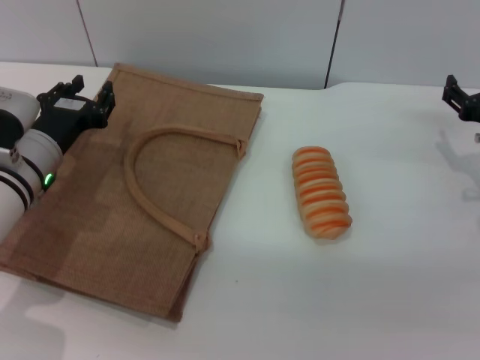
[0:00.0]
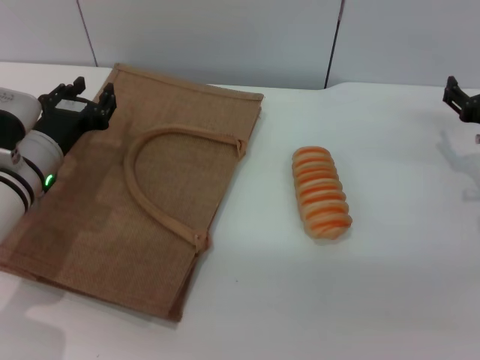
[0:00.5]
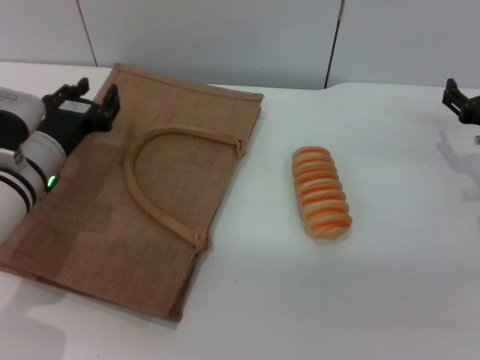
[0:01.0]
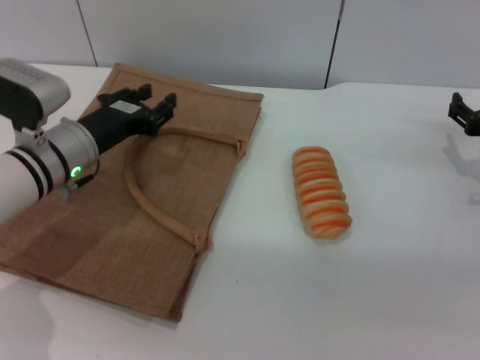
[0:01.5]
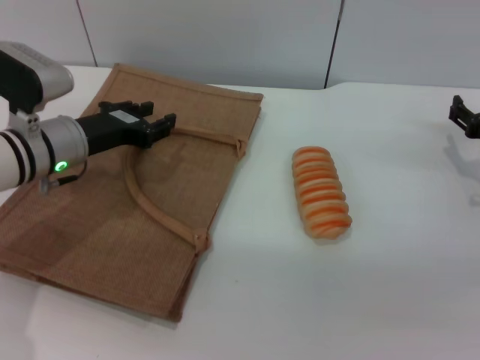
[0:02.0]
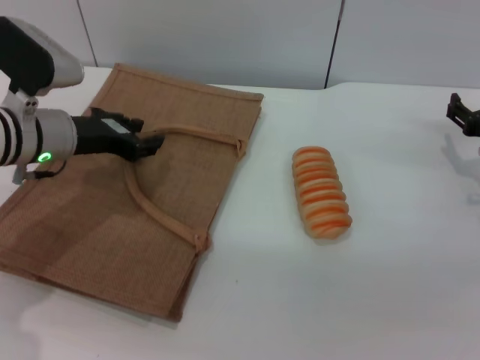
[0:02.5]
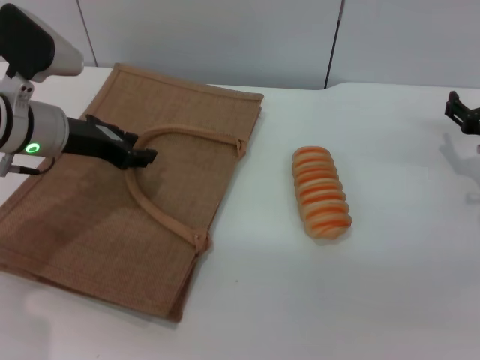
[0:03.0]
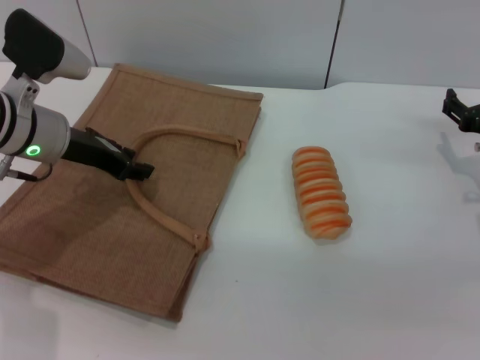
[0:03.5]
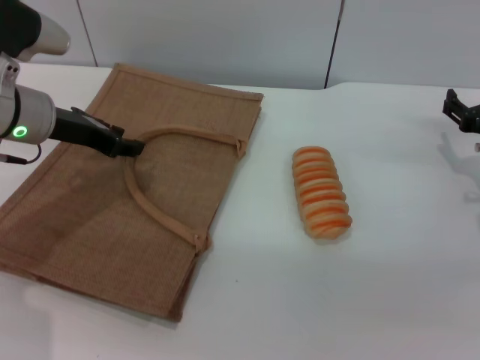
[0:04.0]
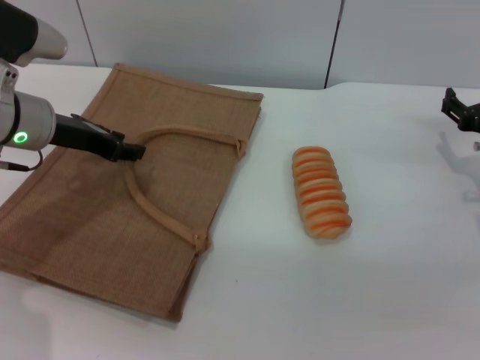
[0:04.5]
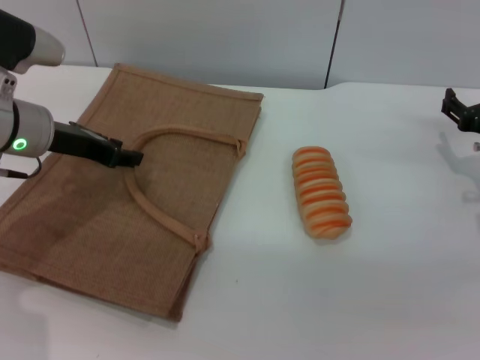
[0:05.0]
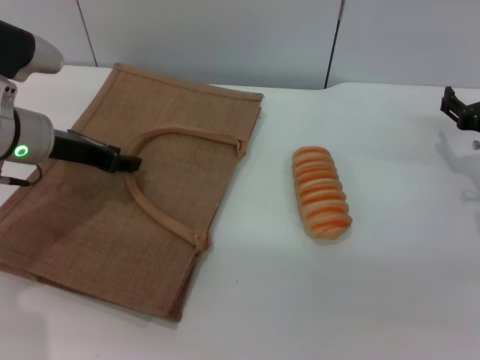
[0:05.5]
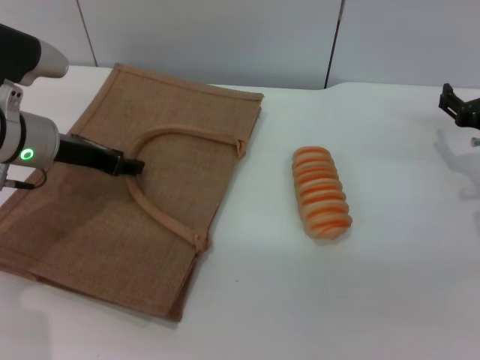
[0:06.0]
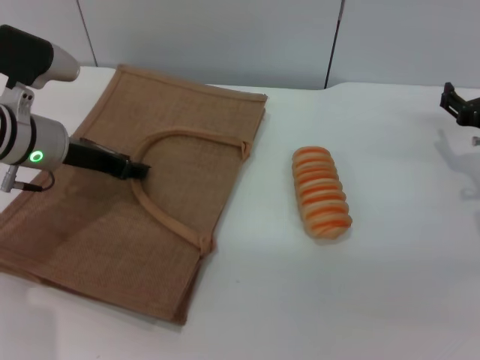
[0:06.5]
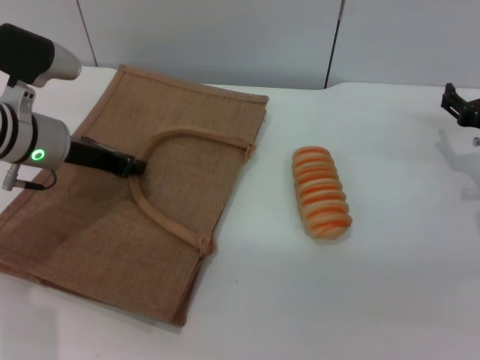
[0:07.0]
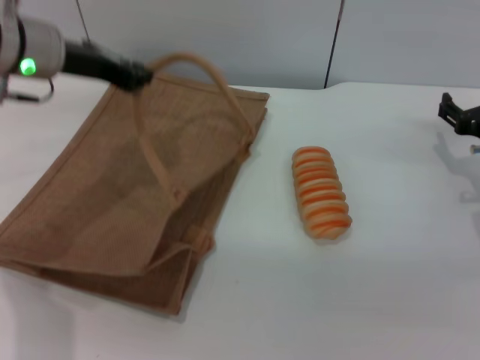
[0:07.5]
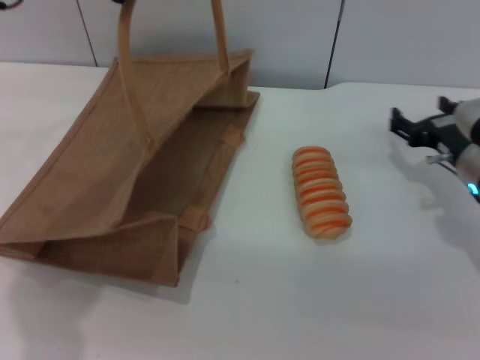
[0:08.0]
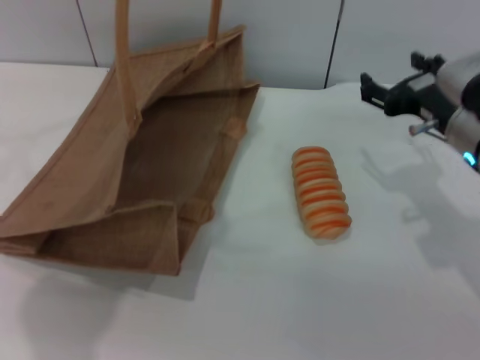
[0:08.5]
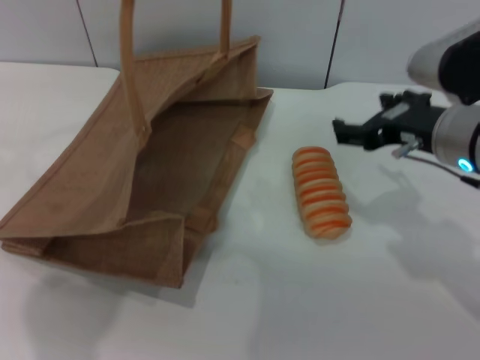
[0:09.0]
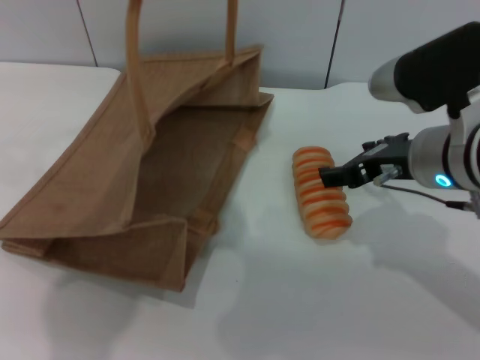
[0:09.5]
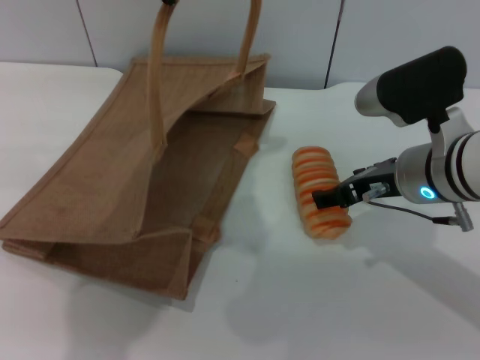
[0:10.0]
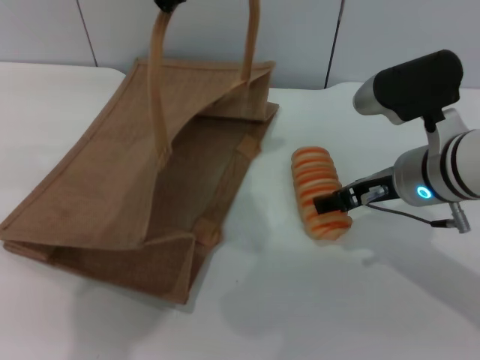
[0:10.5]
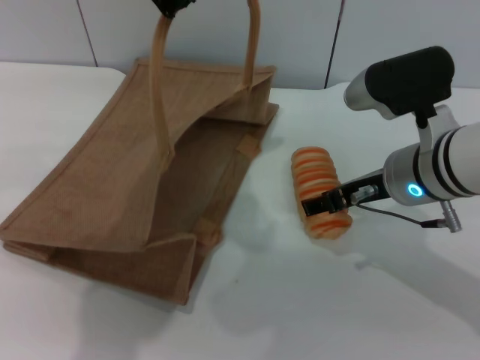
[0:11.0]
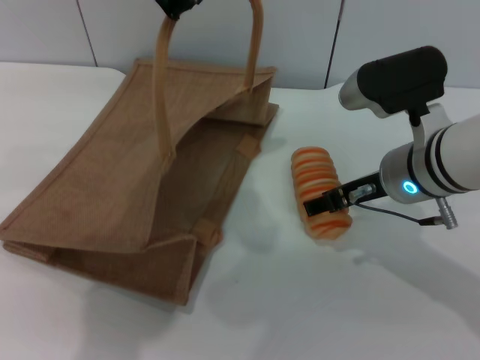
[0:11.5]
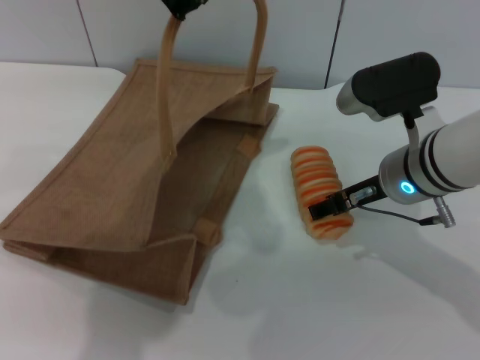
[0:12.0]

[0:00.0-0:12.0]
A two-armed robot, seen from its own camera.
Task of the whole recording: pick up the bread from the table and place it in the brown handbag.
Step, 0:00.0 to 0:08.0: Lift the woven bag with the left gripper to open it.
0:02.0 to 0:04.0: The left gripper shifts roughly 5 cm upward.
0:04.0 to 0:06.0: The grippers make only small movements.
0:06.0 to 0:08.0: The left gripper heads upward, covering some 20 cm, and closes its fingers.
0:08.0 to 0:10.0: The left gripper shifts roughly 5 cm to the right, while the right gripper shifts approximately 10 cm to the left and upward.
0:10.0 to 0:12.0: There are only small adjustments of the grippers.

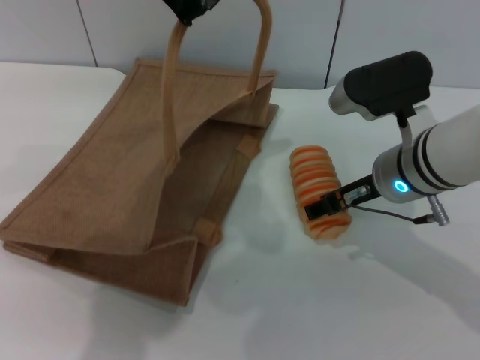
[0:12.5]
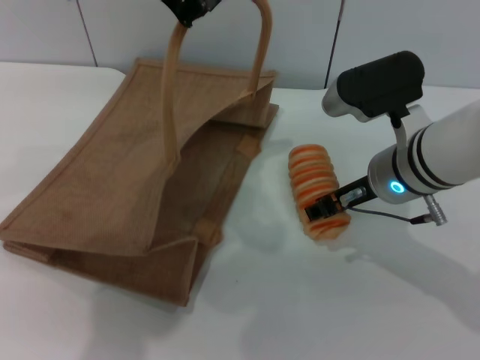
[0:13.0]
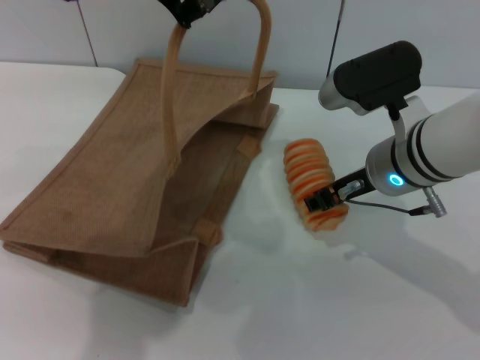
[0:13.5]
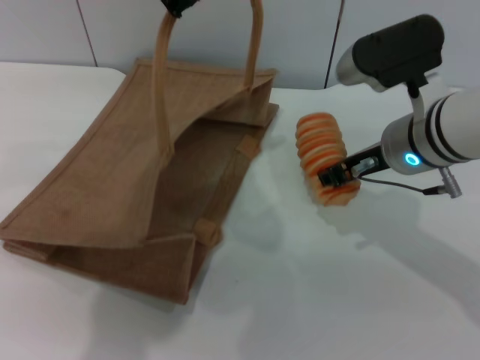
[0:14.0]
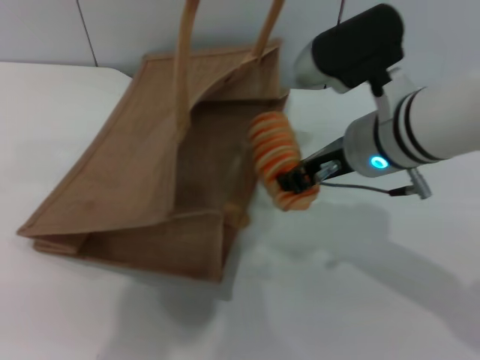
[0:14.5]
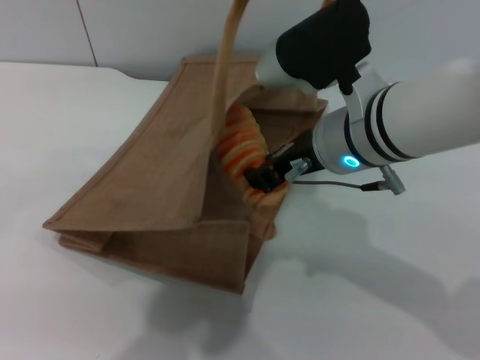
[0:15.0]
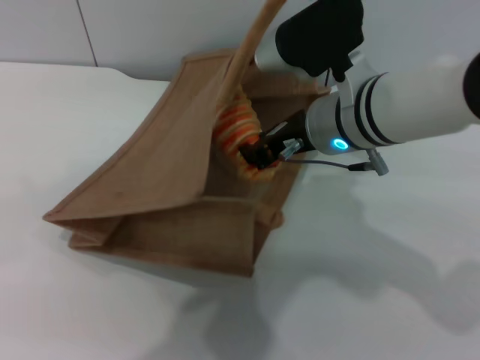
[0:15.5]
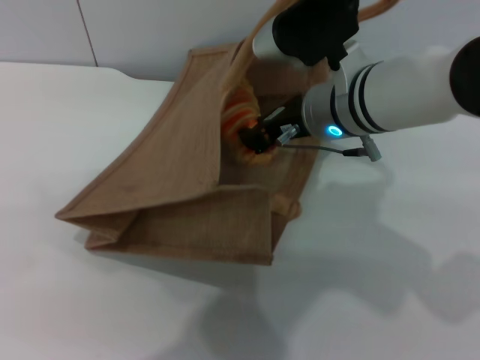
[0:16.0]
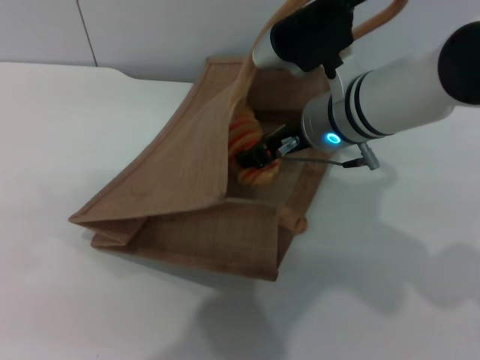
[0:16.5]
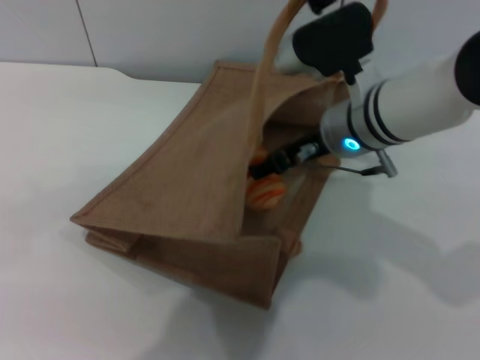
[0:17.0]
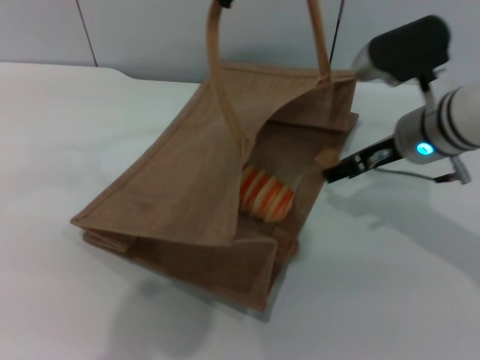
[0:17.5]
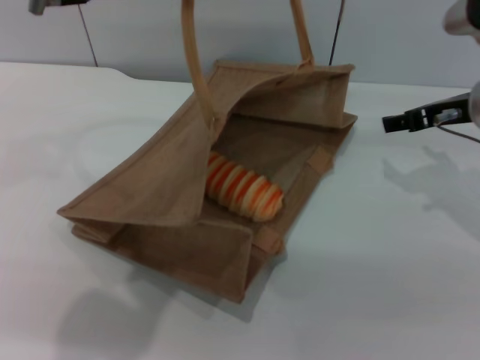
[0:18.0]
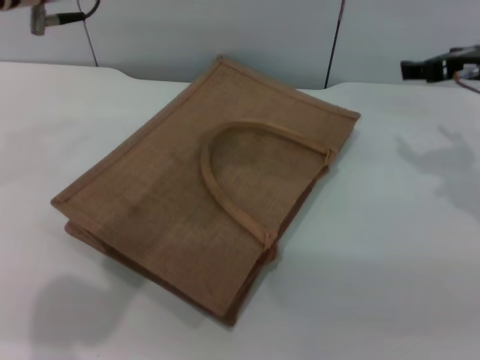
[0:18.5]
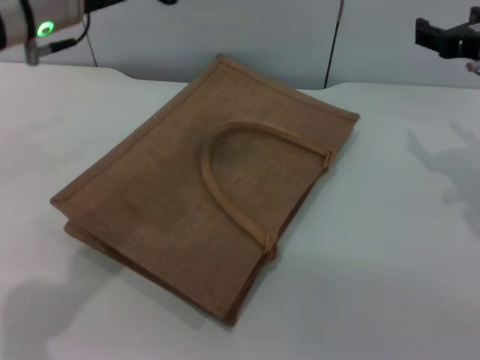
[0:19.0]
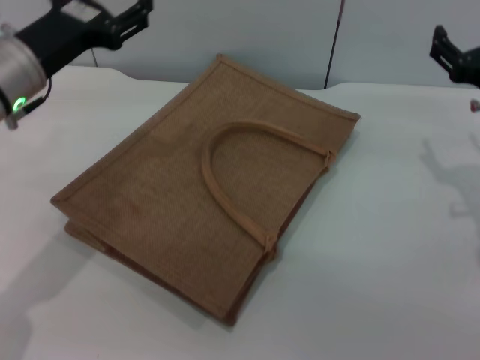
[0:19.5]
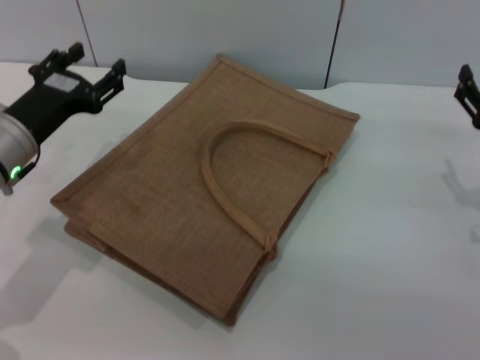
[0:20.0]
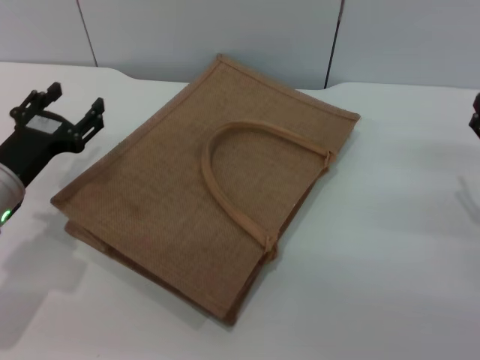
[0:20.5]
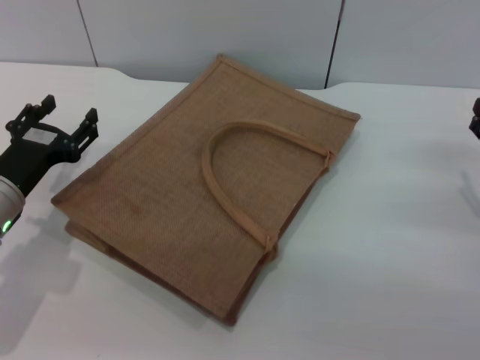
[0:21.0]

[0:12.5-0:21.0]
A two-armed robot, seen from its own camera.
Task of the whole recording: pick up the bread from the table and place it in the brown handbag.
Step, 0:14.5 to 0:17.0: Place the bread into the woven bag with the right gripper.
Step, 0:17.5 to 0:18.5: Lower the woven bag with the left gripper to close it.
0:12.5 to 0:14.5: The right gripper changes place by approximately 5 cm, and closes up.
0:14.5 to 0:16.5: The left gripper moves to the right, roughly 10 cm, while the right gripper ends up about 5 cm from where it was.
0:16.5 to 0:19.0: The right gripper heads to the right, covering approximately 15 cm, and opens its fingers. Meanwhile the left gripper goes about 20 cm to the left and downward, and opens up.
0:19.0 to 0:21.0: The right gripper is displaced downward, backward and to the right by about 15 cm; the left gripper moves downward and to the left, roughly 20 cm.

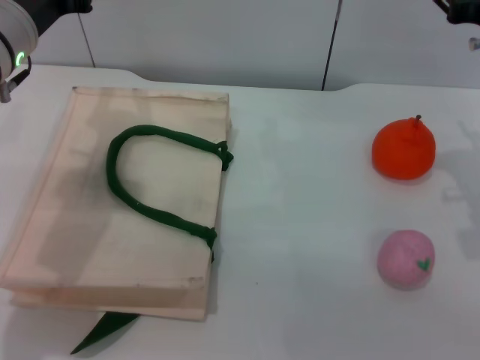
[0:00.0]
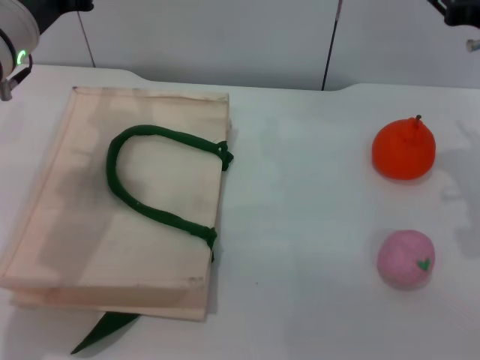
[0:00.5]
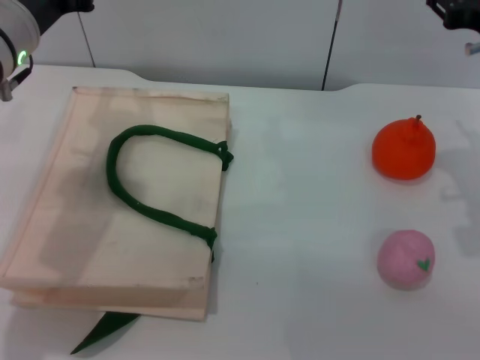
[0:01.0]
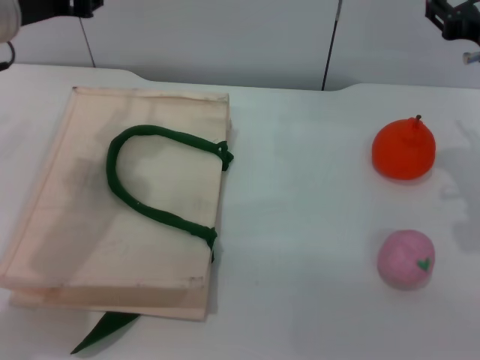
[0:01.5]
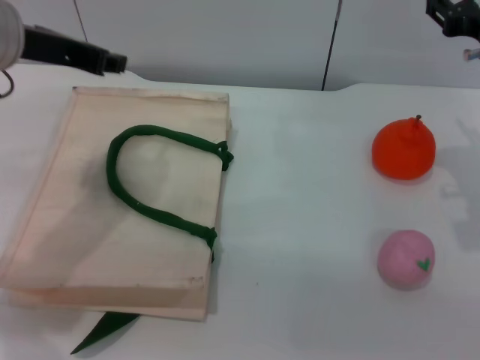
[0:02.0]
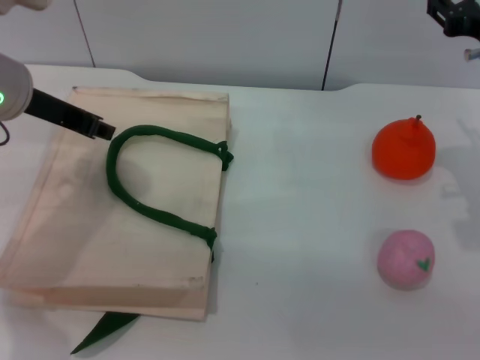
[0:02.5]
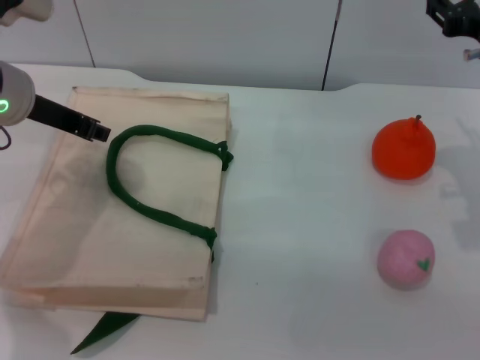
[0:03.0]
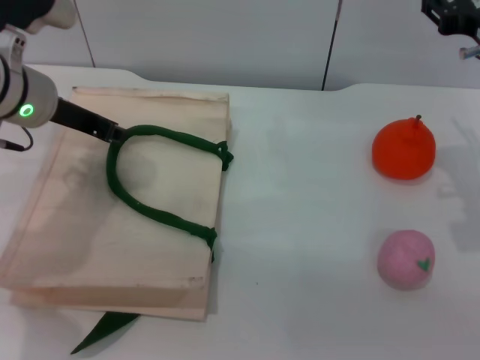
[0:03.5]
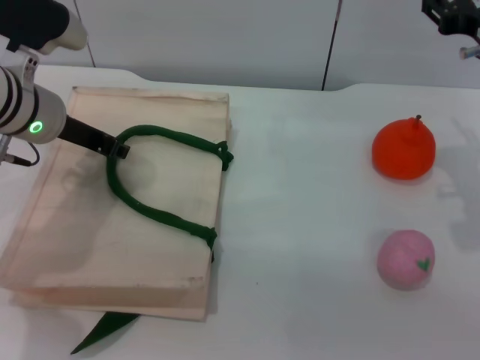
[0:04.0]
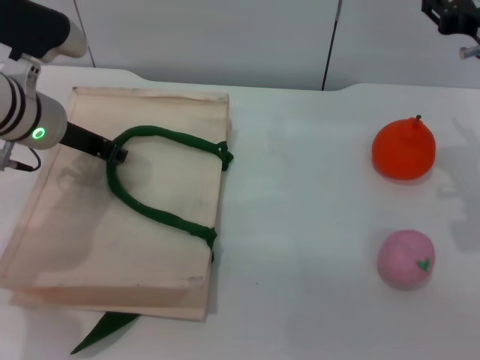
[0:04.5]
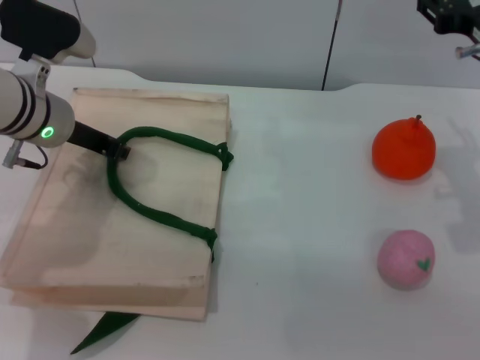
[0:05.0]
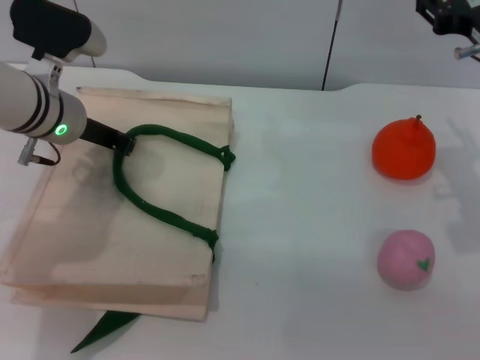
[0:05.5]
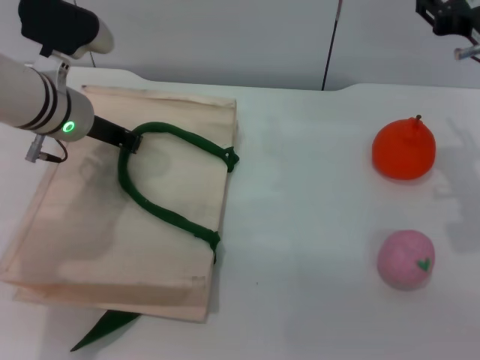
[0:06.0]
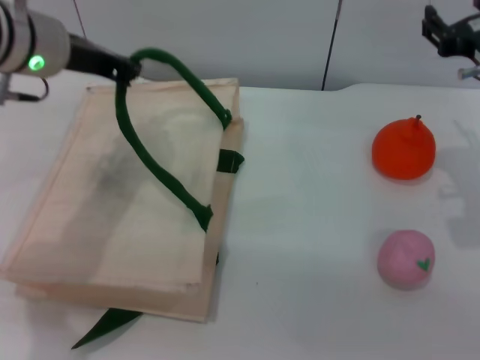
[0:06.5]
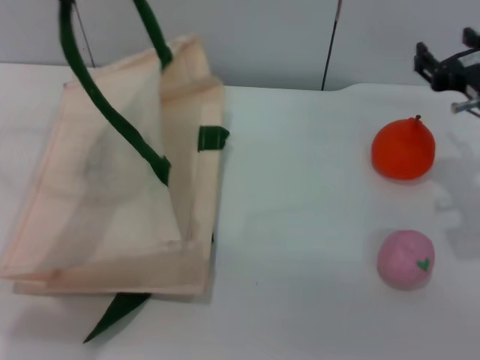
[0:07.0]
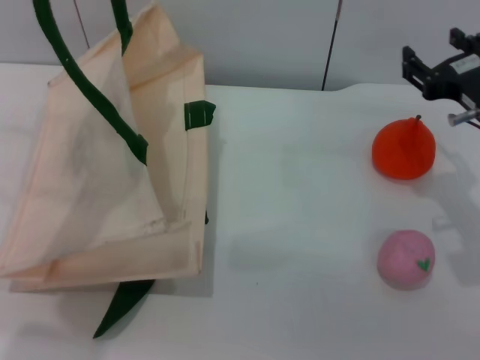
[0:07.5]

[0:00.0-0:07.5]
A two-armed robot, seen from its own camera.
Task of the whole recording: pick up the orange and peach from the table and place it in the white handbag.
Step, 0:00.0 to 0:05.0: Lift the woven bag with the left gripper to open it.
0:00.0 to 0:02.0: The left gripper is displaced upward by about 5 cm.
0:02.0 to 0:04.0: The left gripper goes approximately 10 cm downward.
0:04.0 to 0:05.5: The left gripper closes up.
0:05.5 to 0:07.5: The left gripper travels upward by approximately 20 cm. The right gripper shifts by approximately 5 cm.
